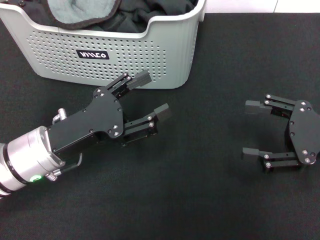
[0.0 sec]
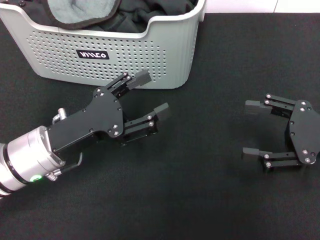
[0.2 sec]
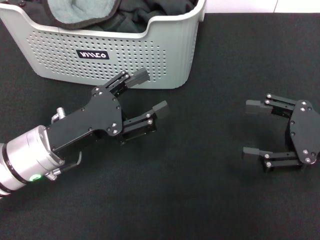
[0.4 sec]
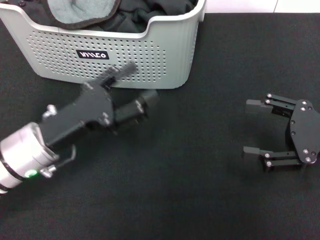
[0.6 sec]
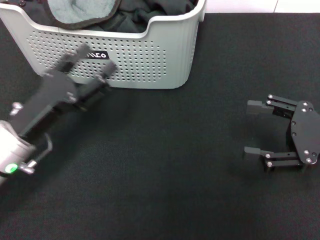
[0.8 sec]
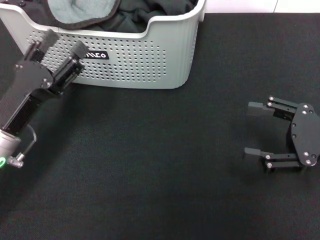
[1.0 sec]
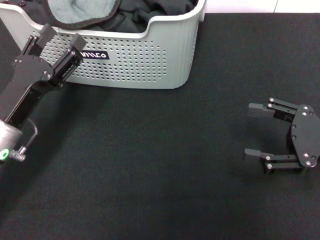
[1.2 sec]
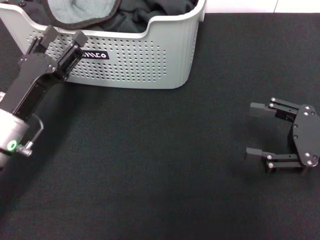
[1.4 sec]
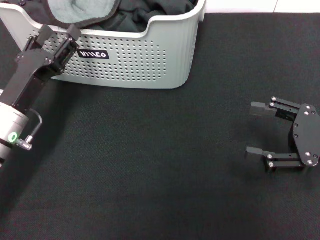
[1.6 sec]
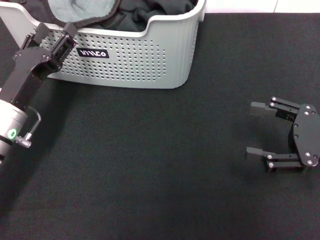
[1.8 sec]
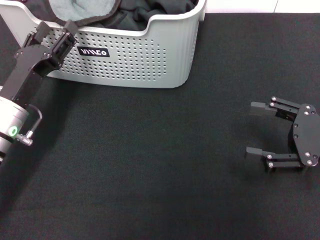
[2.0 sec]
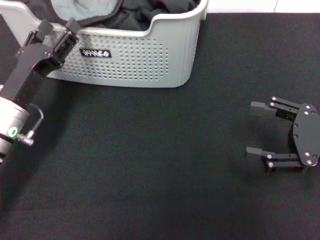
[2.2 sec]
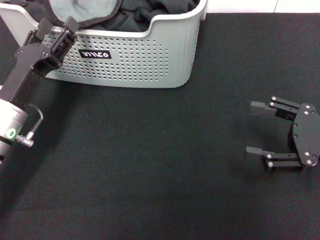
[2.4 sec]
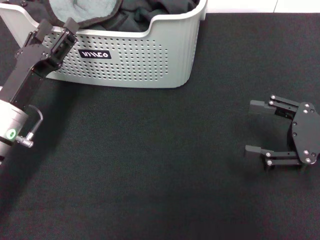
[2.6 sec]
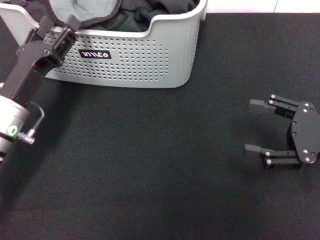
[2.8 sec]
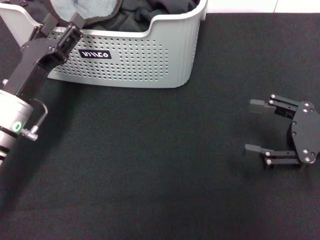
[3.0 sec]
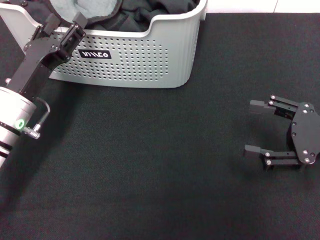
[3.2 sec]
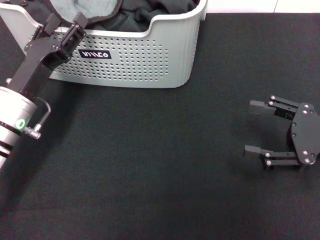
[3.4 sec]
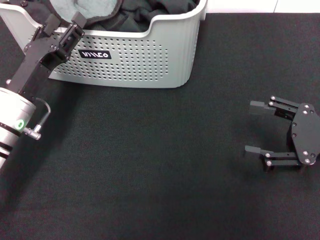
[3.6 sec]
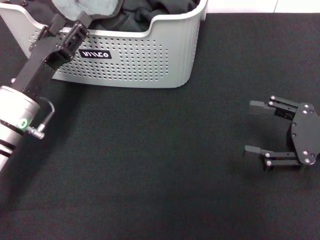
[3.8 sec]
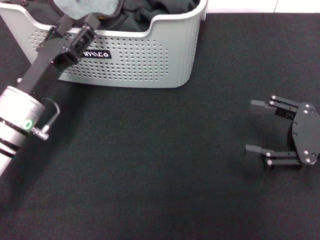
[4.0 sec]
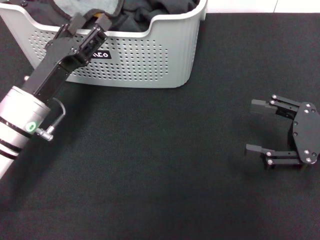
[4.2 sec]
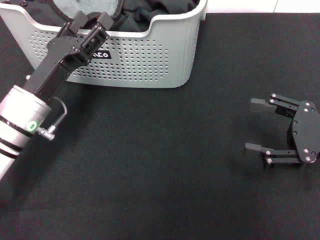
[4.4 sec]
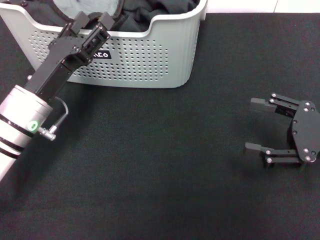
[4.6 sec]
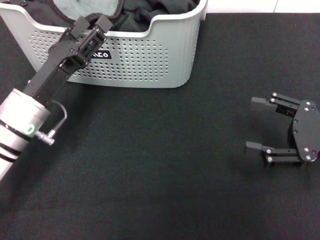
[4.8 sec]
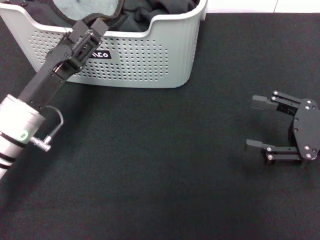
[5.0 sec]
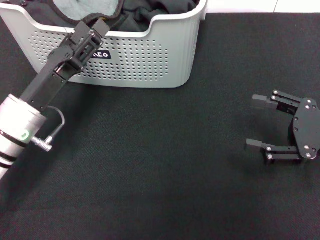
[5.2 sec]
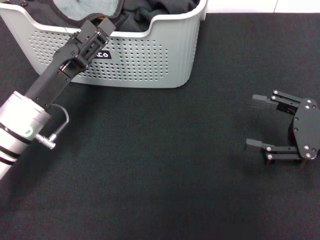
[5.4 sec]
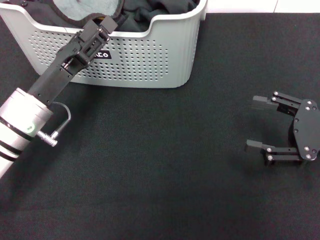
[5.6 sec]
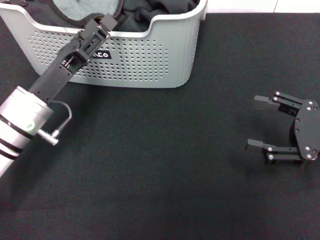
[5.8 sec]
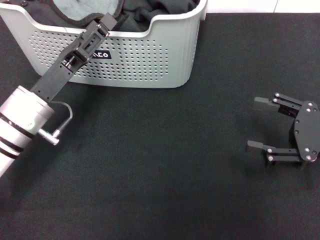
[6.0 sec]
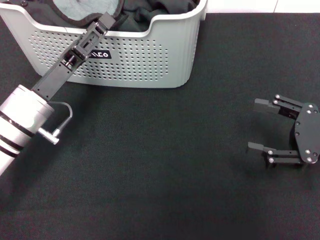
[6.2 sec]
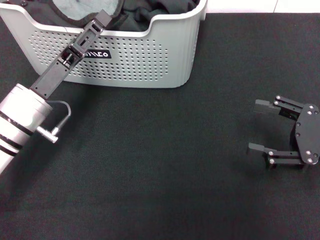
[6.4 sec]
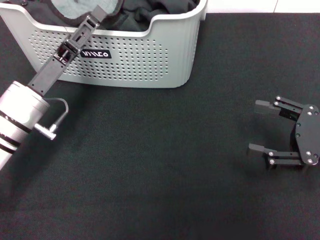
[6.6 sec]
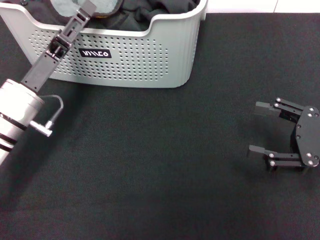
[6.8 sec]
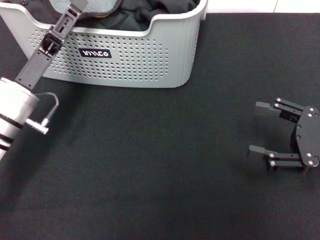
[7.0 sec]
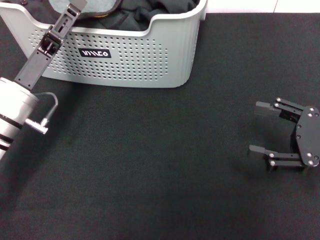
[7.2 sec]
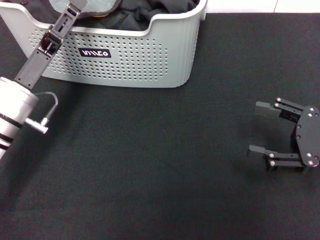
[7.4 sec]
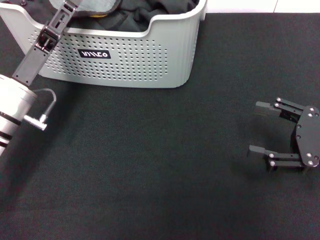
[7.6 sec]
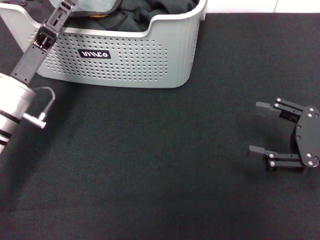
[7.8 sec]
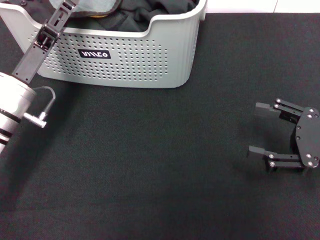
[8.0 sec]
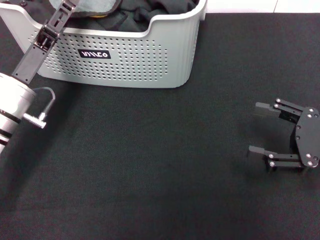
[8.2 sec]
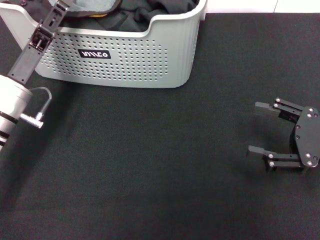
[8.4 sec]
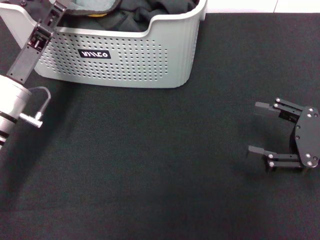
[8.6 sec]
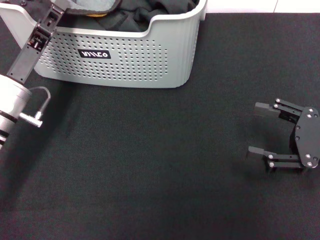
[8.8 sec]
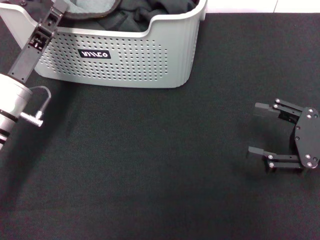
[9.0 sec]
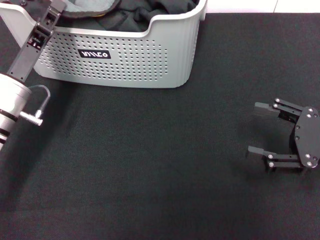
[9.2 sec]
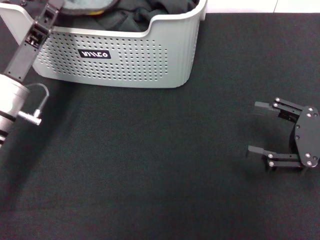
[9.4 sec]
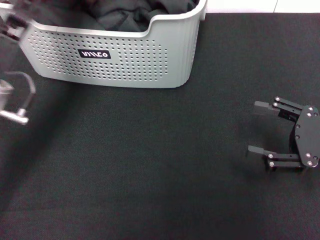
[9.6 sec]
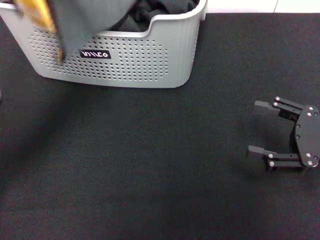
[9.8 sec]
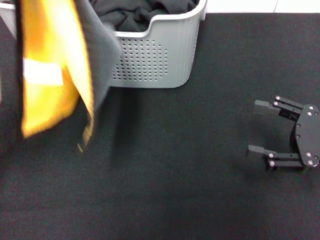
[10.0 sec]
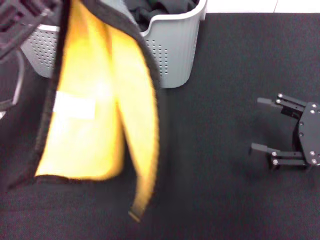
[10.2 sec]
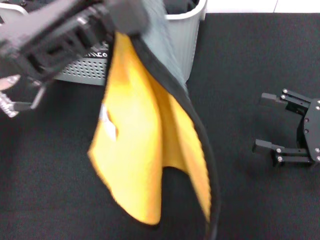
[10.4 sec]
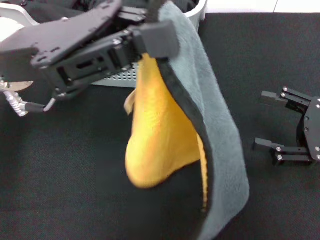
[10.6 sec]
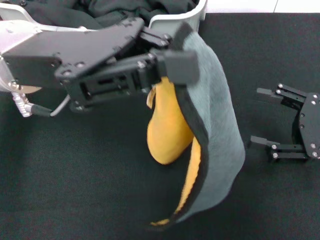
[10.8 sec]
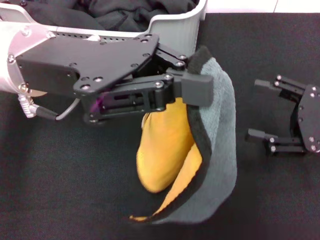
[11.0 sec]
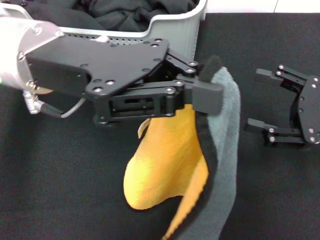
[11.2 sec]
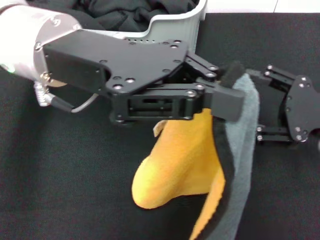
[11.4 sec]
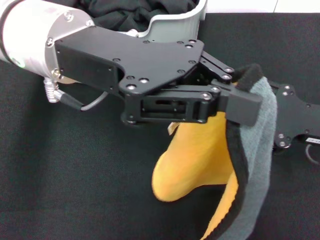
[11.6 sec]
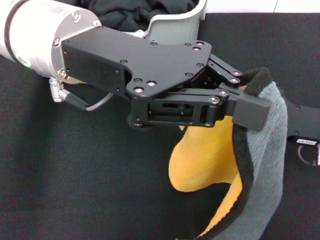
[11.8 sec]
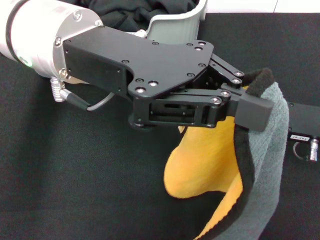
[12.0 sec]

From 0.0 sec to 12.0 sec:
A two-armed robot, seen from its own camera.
Task of the whole recording: pick up the towel from the storage box and lay it flat on the black tablecloth.
Step, from 0.0 sec to 9.2 sec: Pick up a towel with the left gripper.
From 0.0 sec to 1.6 sec: The left gripper ends up some 5 cm from where it was.
From 1.6 sec to 4.4 sec: The grippers stay close to where they were, moving slightly.
From 4.4 sec to 6.0 sec: The grippers make only small movements.
From 6.0 sec to 7.6 sec: The grippers move only a little.
From 7.6 sec to 9.0 sec: The left gripper closes.
From 9.0 sec to 10.4 sec: The left gripper moves upward, roughly 15 cm.
From 10.4 sec to 12.0 sec: The right gripper changes place by roughly 5 cm, while the left gripper travels to the right by roughly 5 cm.

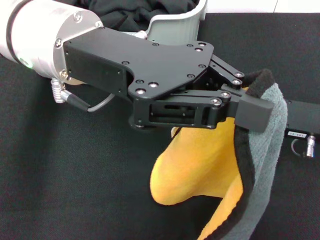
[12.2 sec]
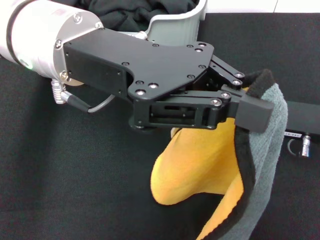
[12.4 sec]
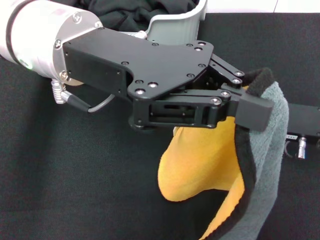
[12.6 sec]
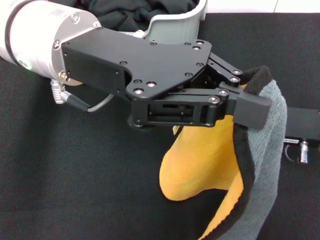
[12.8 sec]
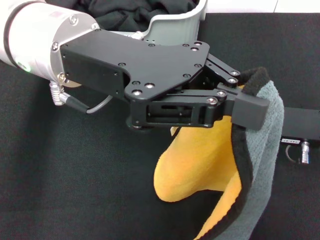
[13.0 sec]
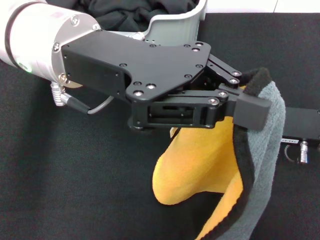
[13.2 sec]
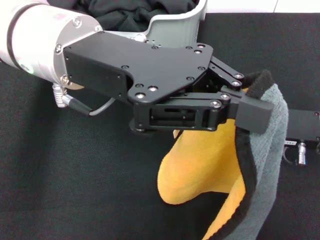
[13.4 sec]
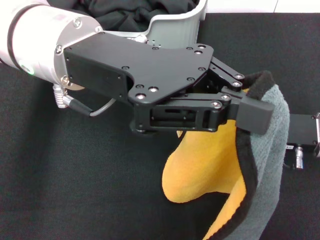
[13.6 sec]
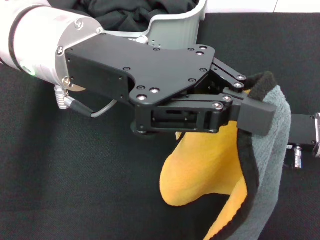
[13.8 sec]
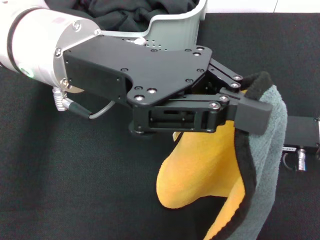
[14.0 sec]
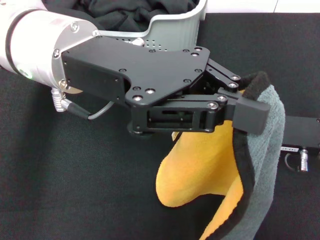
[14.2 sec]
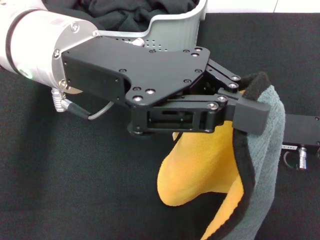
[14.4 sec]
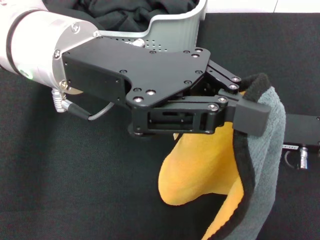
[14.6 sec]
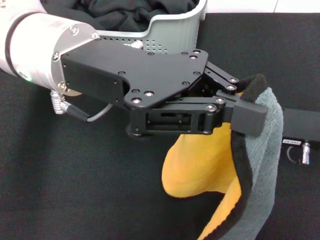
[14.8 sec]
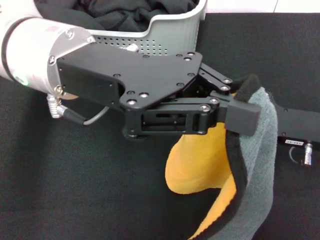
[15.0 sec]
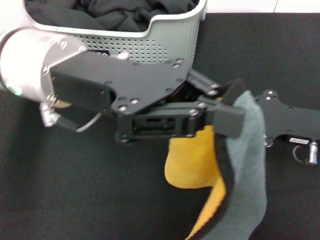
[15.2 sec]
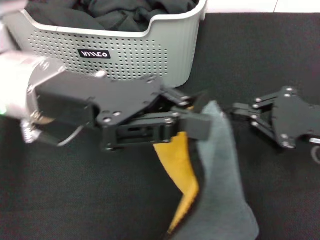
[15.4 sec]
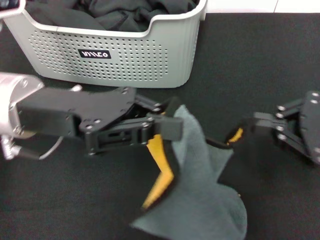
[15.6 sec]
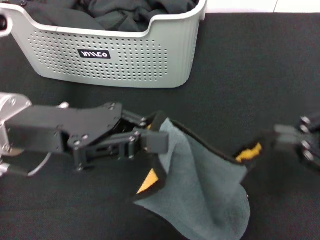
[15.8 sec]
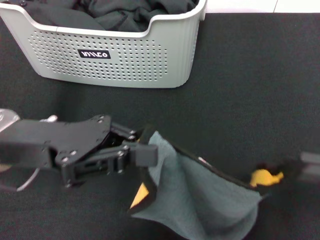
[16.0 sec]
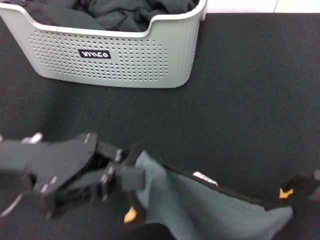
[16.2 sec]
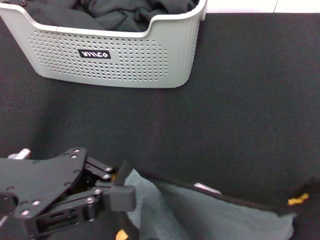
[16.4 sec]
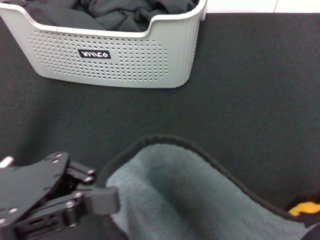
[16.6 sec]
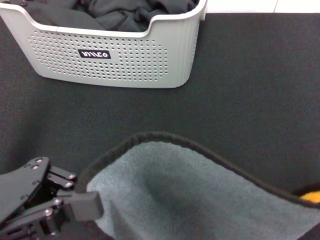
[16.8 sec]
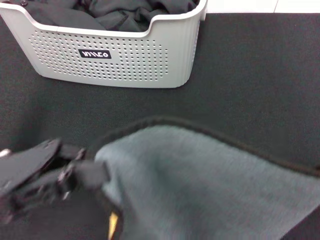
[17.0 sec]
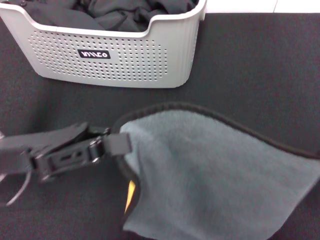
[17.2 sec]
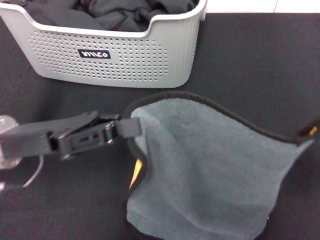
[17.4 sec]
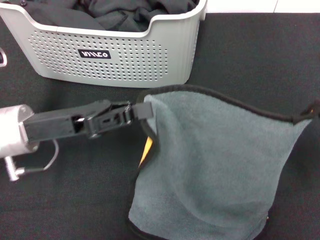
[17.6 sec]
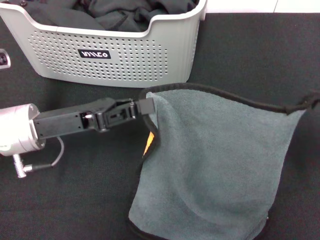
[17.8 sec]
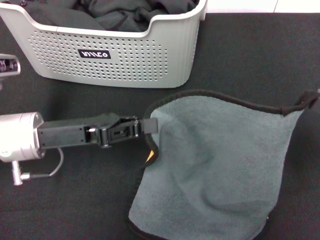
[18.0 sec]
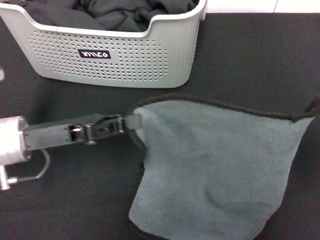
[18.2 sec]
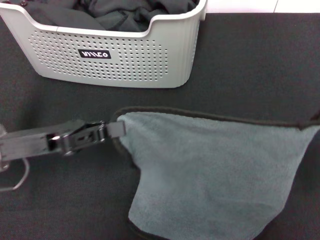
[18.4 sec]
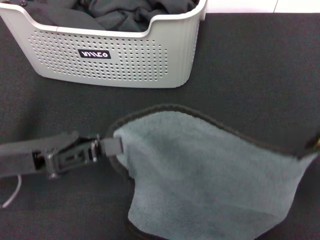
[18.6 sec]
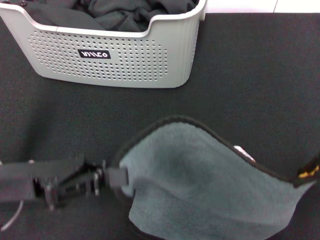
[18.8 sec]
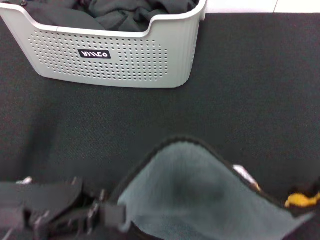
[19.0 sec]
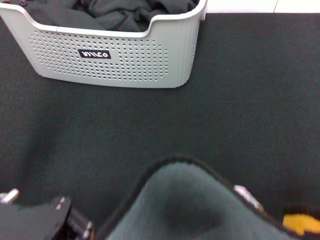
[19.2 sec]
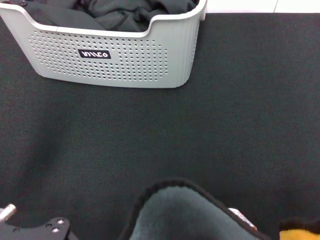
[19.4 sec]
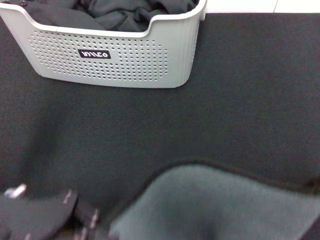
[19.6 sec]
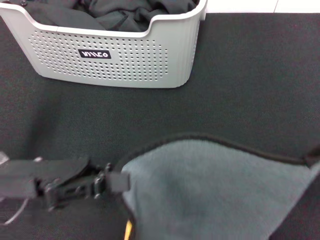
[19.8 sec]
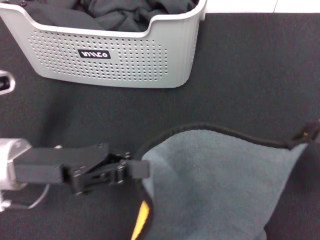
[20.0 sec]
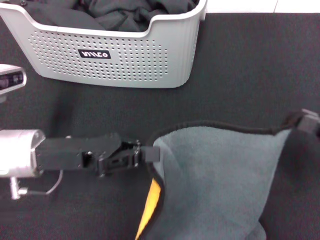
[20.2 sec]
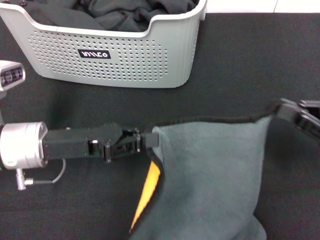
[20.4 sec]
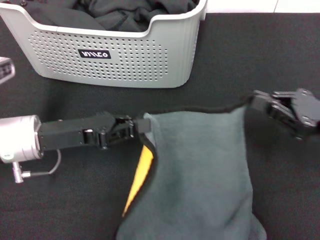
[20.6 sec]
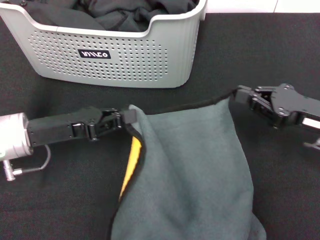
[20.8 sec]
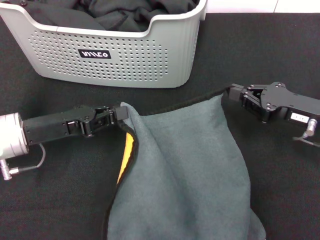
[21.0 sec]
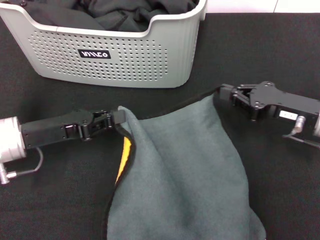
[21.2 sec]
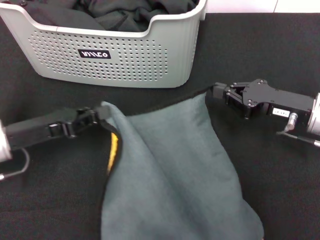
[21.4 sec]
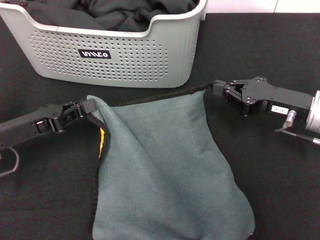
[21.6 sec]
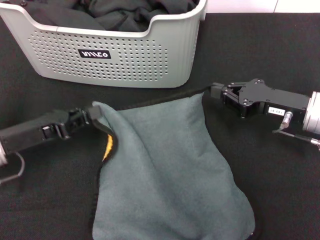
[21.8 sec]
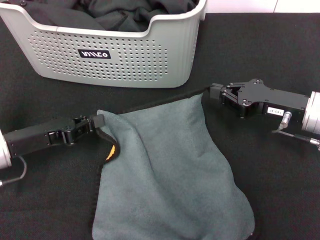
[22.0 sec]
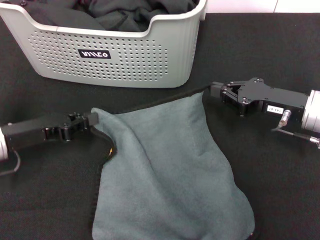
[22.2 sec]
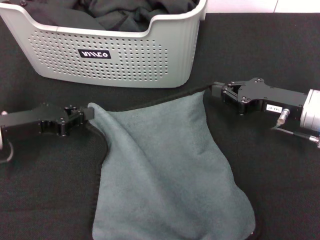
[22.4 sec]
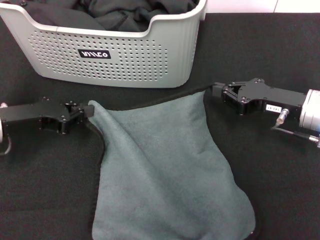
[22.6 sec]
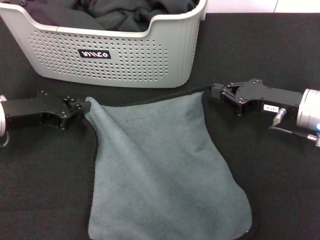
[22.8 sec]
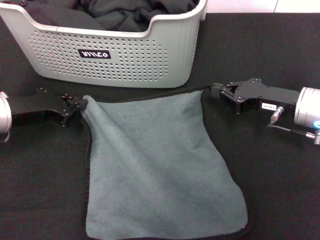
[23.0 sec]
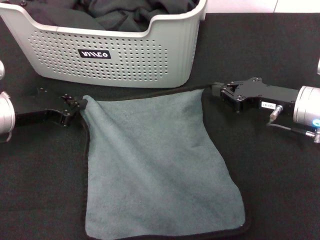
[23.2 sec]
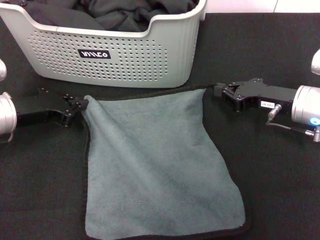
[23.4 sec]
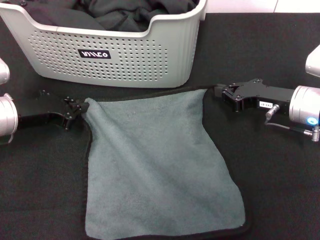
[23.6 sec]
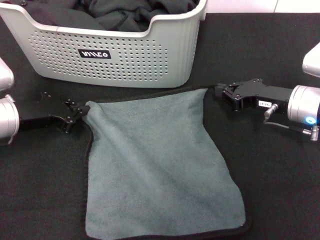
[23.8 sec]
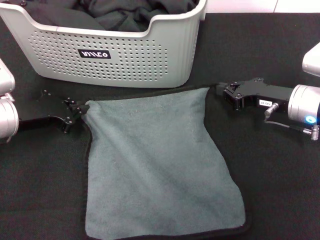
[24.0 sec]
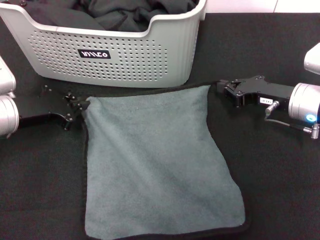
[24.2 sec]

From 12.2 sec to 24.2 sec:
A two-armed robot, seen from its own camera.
Task of the whole recording: pick up the towel from the storage box and lay it flat on the black tablecloth.
Step, from 12.2 sec to 15.2 sec: Spread the towel flat with the left gripper.
From 12.2 sec to 13.8 sec: There are only small adjustments of the grippers.
From 13.8 sec to 15.2 sec: The right gripper closes up.
From 15.2 sec to 16.6 sec: The right gripper heads backward and upward, covering some 20 cm. The left gripper shifts about 15 cm backward, to the left and downward.
From 16.6 sec to 18.2 sec: The grippers both shift forward and downward by approximately 10 cm.
From 19.8 sec to 21.2 sec: The left gripper shifts roughly 5 cm forward, while the right gripper shifts approximately 20 cm forward, to the left and downward.
